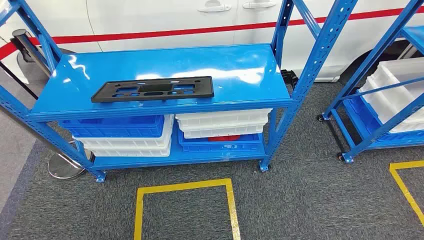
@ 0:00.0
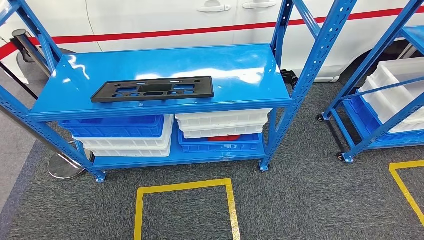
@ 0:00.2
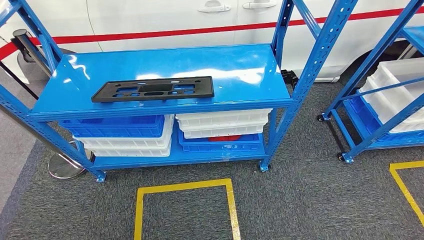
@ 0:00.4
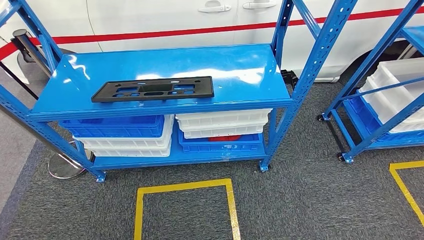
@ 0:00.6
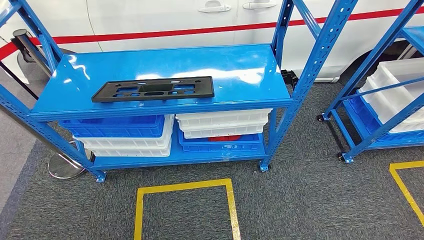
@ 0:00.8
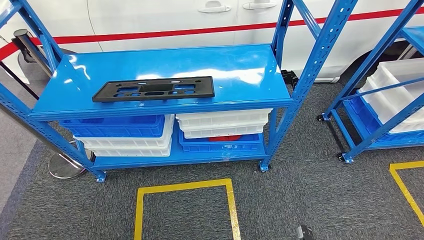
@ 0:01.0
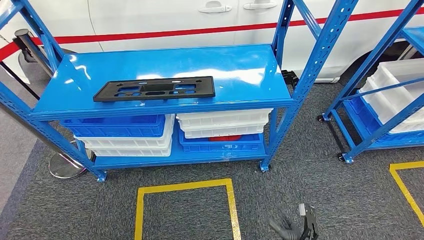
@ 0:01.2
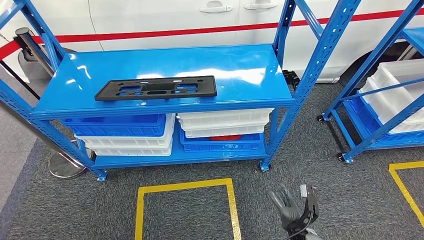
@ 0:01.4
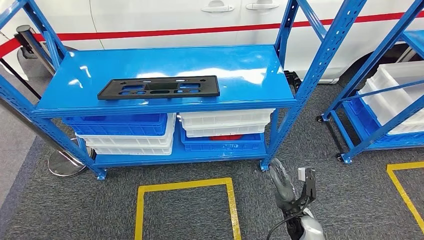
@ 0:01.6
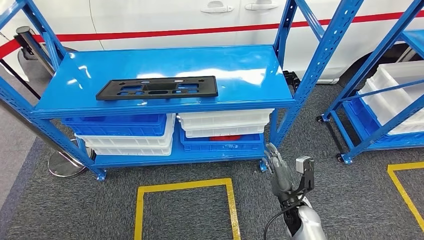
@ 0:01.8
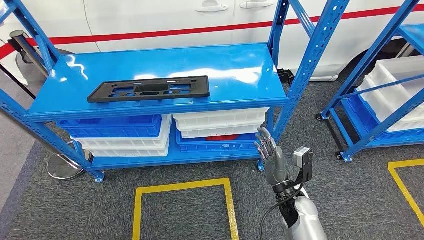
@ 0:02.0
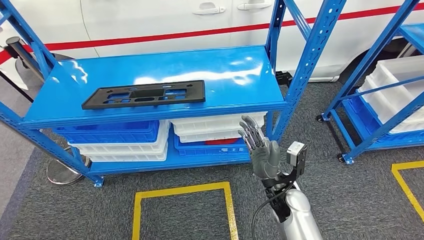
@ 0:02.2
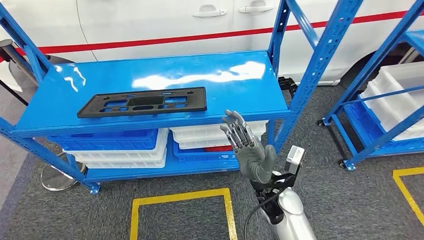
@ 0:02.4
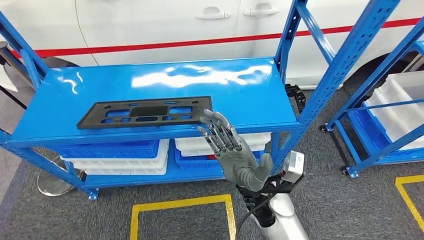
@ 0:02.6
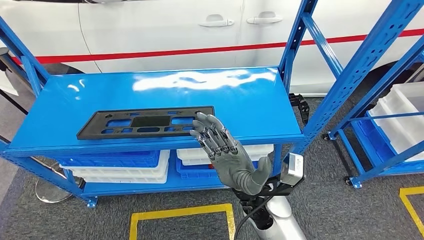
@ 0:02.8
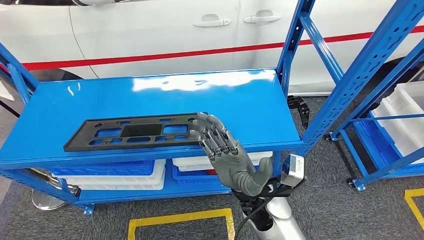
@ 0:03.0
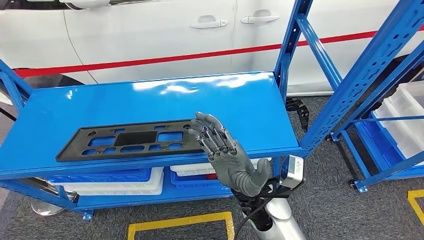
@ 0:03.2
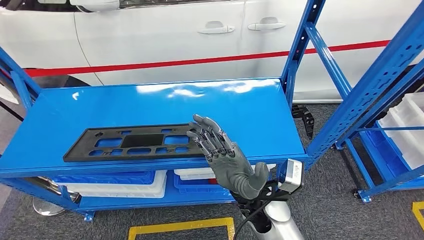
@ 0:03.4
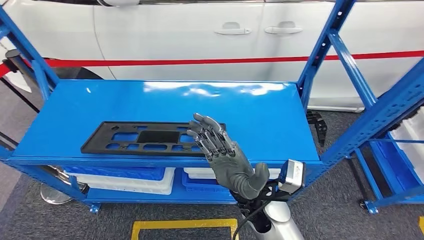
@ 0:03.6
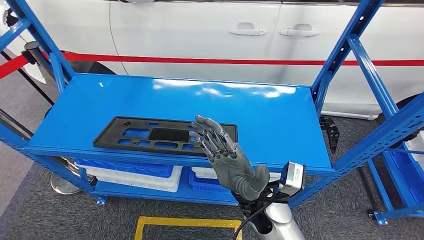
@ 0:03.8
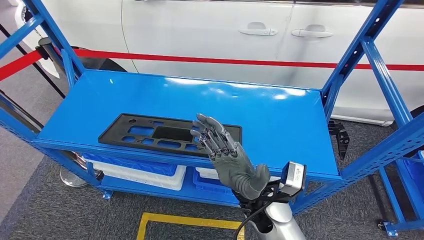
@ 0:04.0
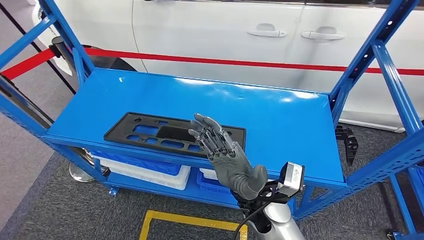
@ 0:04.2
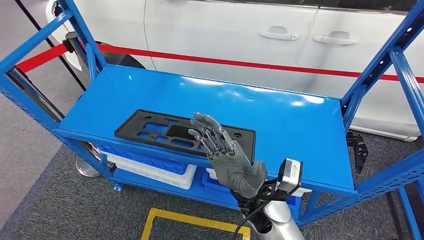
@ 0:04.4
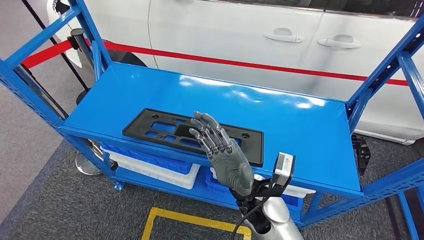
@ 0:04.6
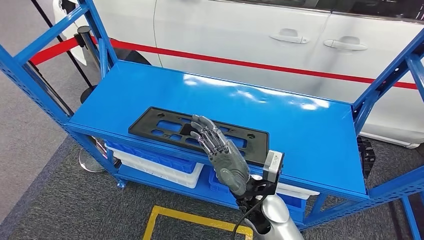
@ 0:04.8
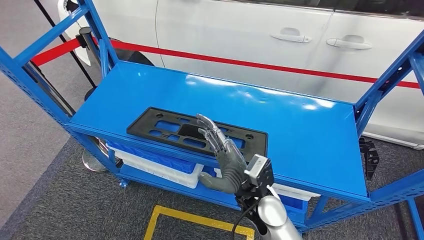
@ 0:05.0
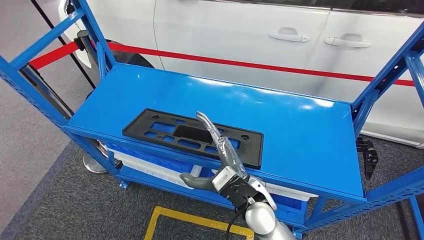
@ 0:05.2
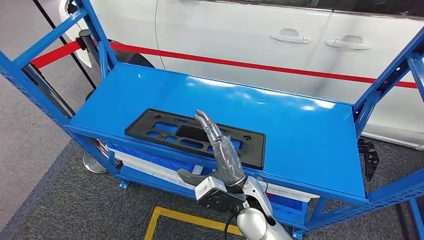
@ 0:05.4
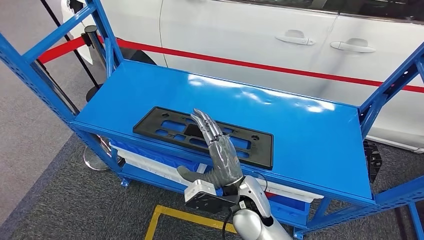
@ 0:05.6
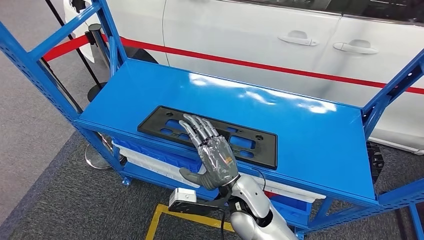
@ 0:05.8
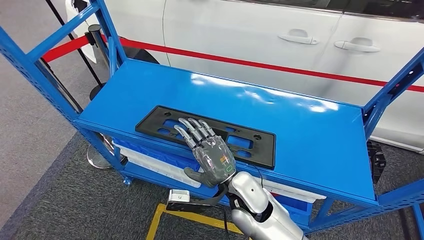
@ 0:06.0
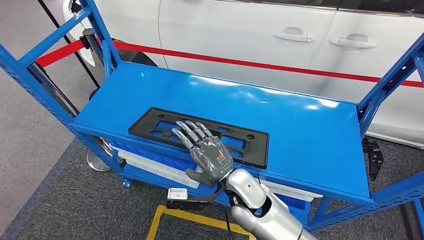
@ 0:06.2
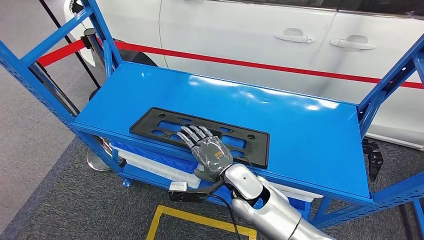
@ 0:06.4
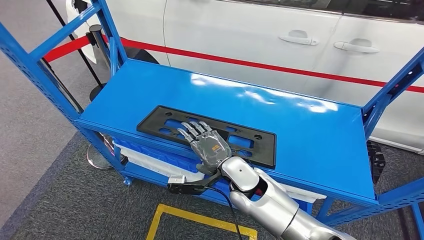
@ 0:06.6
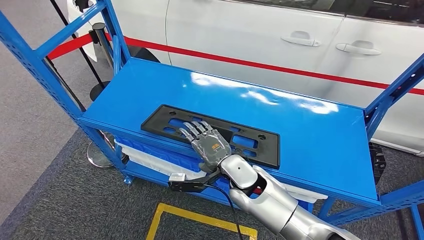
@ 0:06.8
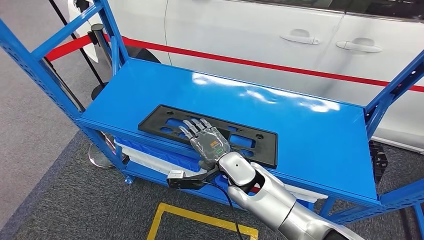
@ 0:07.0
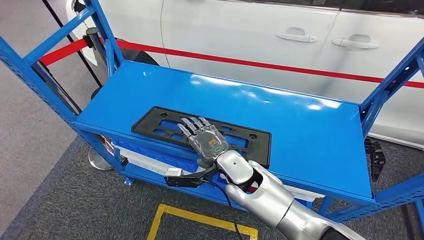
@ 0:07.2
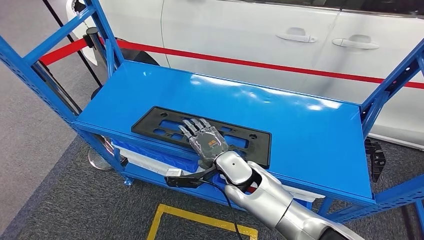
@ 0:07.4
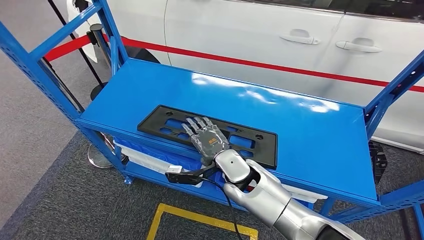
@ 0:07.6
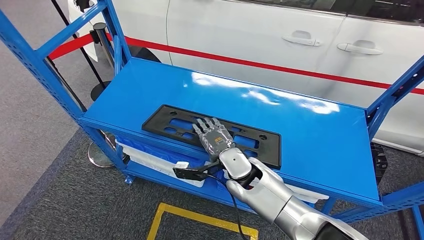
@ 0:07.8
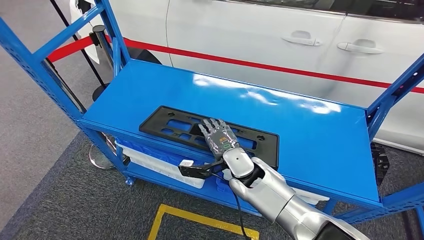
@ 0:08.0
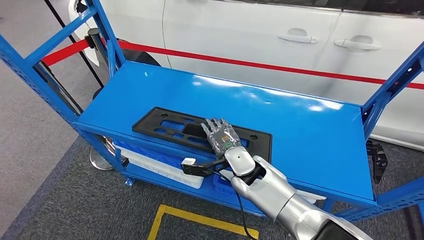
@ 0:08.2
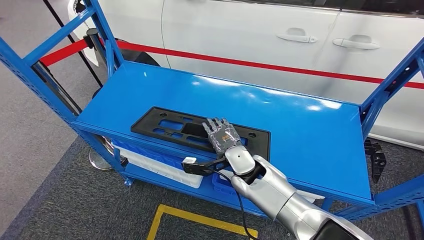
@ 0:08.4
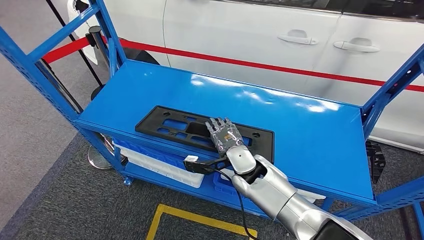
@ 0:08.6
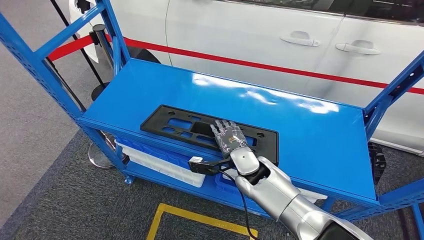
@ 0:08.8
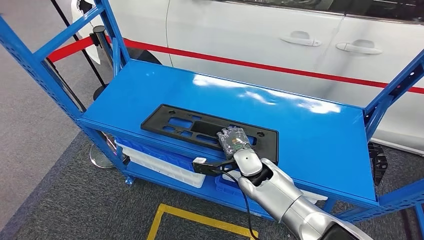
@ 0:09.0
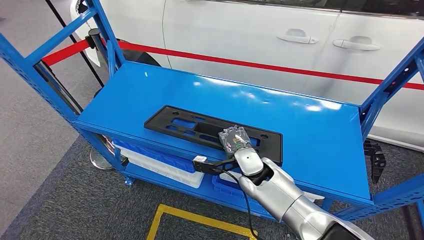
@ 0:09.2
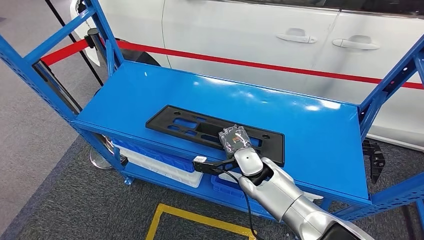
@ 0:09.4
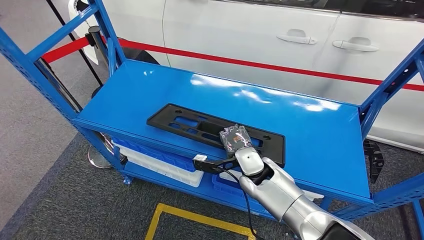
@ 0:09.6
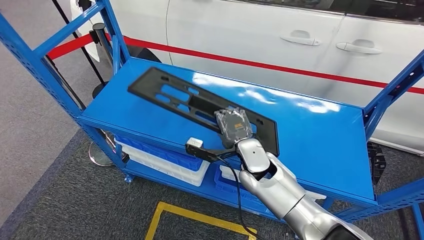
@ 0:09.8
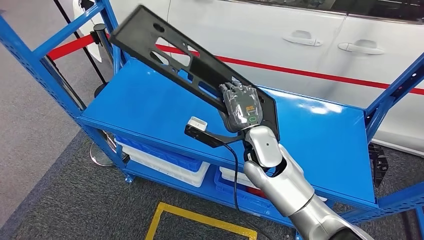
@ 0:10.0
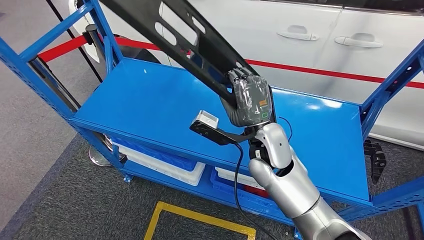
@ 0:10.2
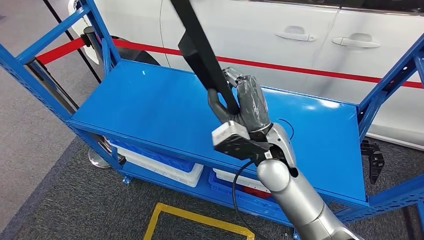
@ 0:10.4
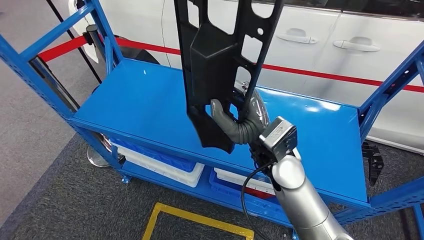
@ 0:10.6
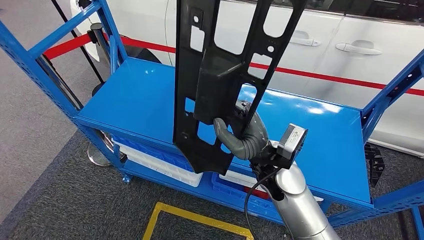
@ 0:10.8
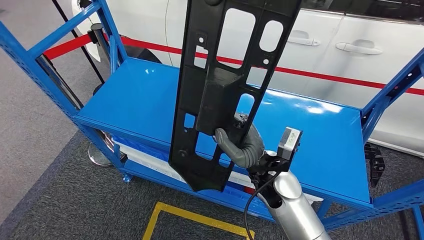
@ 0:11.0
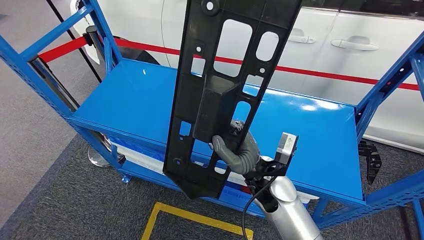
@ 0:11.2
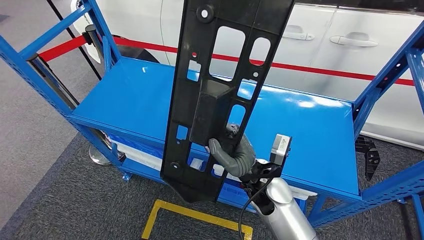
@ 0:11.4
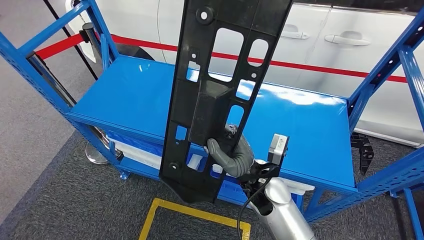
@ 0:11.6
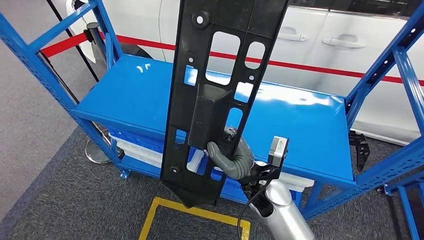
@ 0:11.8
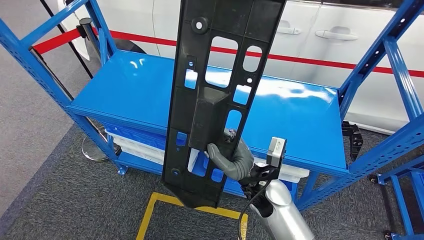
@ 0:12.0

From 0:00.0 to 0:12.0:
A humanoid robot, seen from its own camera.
Step, from 0:00.0 to 0:12.0: Pick up the large material from the shelf.
From 0:06.0 to 0:07.6: The right hand travels forward by some 5 cm.
From 0:07.6 to 0:09.0: The right hand ends up approximately 5 cm from where it was.

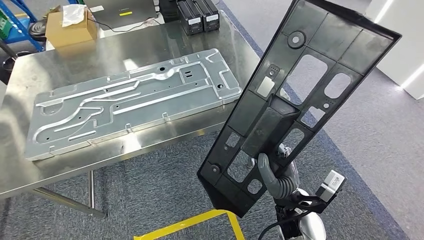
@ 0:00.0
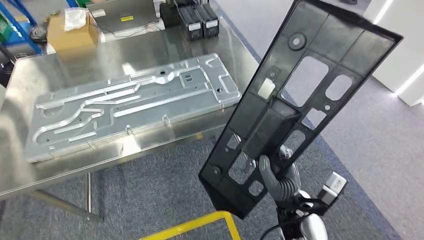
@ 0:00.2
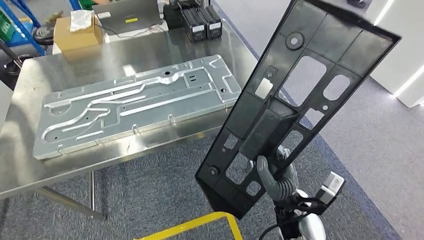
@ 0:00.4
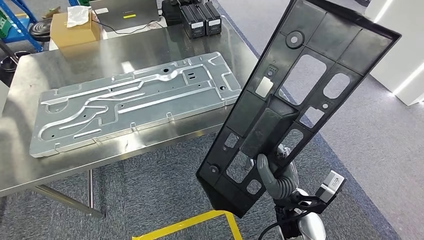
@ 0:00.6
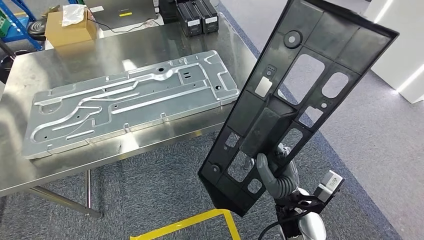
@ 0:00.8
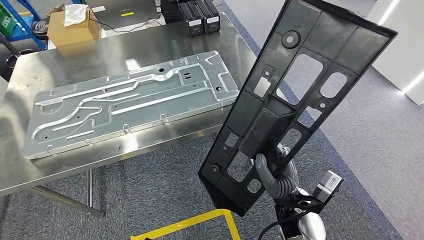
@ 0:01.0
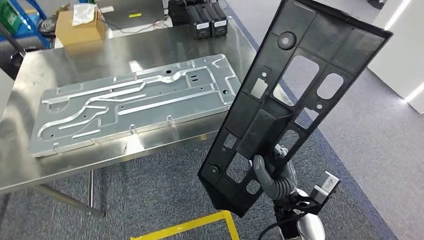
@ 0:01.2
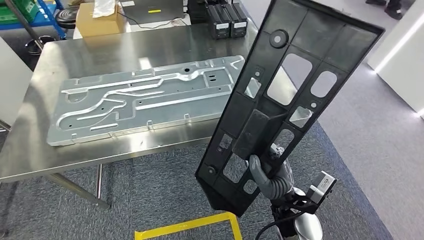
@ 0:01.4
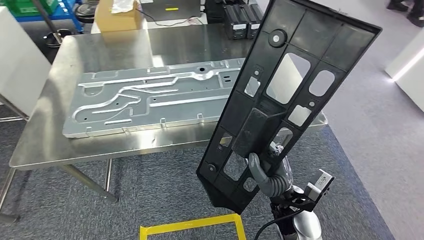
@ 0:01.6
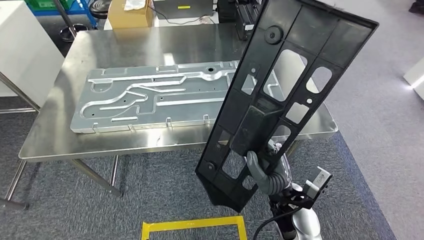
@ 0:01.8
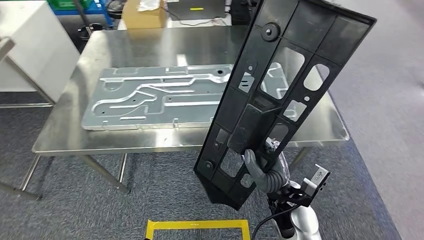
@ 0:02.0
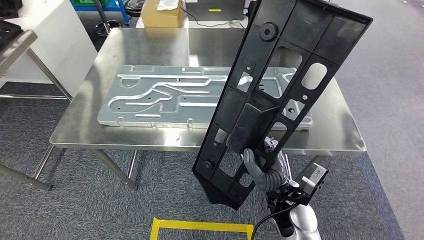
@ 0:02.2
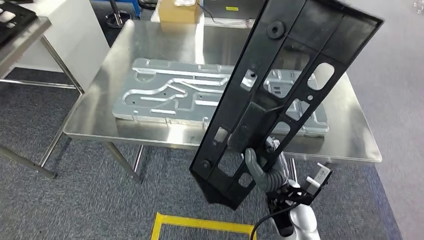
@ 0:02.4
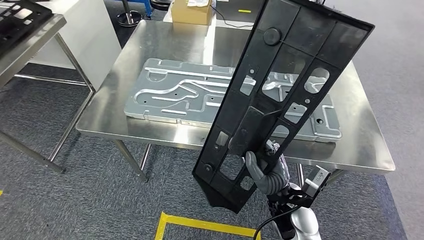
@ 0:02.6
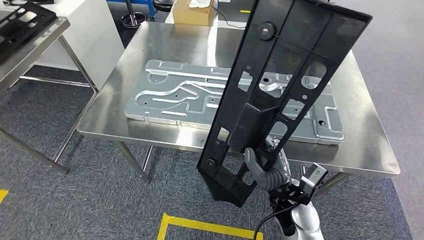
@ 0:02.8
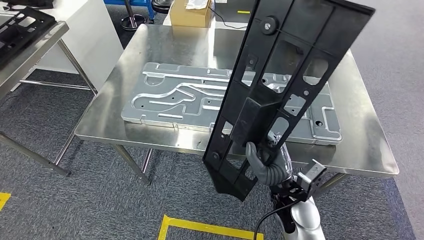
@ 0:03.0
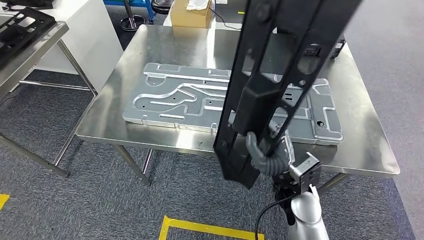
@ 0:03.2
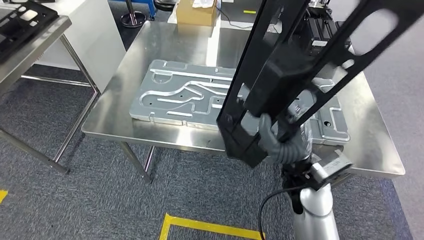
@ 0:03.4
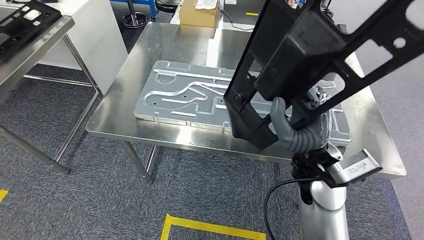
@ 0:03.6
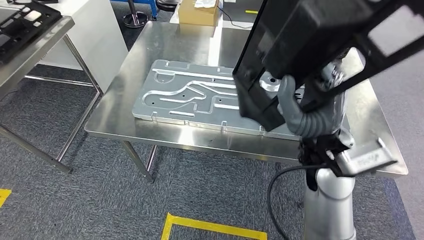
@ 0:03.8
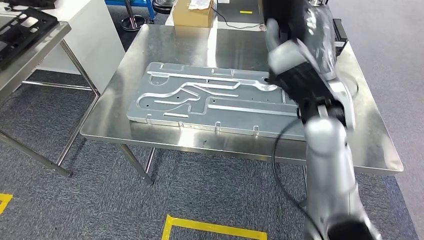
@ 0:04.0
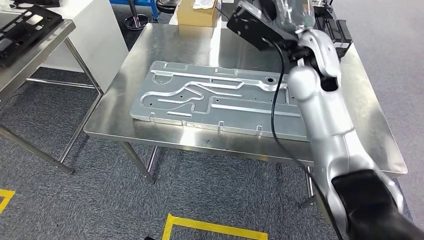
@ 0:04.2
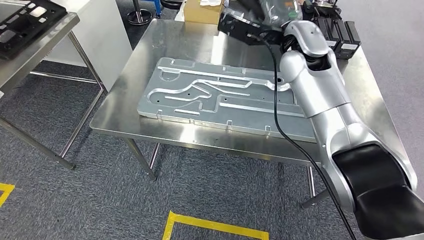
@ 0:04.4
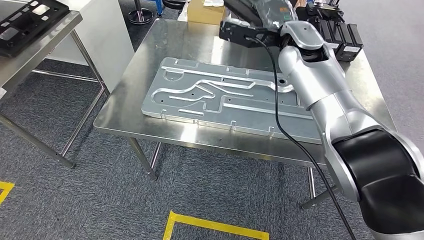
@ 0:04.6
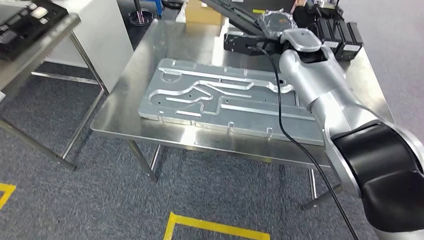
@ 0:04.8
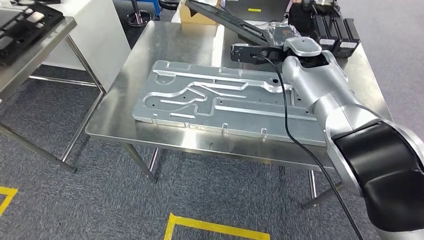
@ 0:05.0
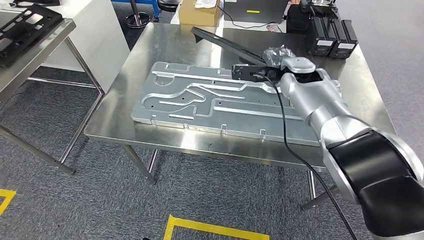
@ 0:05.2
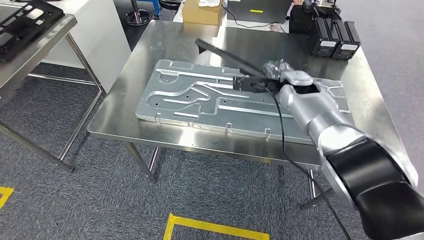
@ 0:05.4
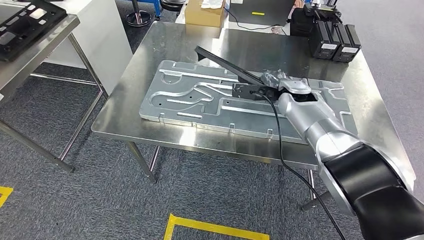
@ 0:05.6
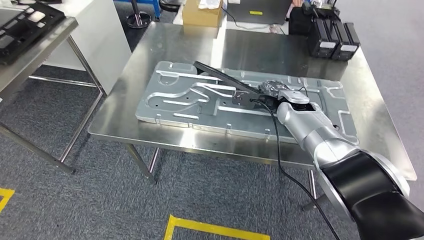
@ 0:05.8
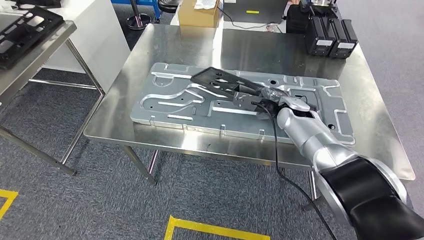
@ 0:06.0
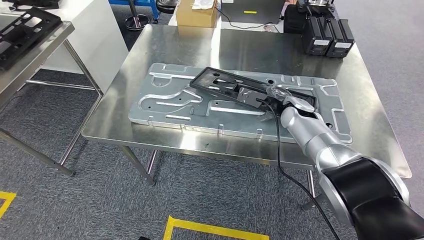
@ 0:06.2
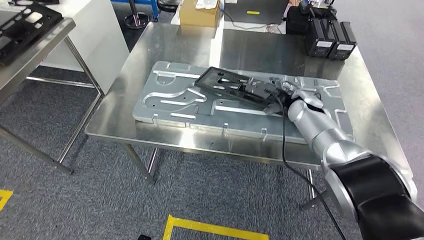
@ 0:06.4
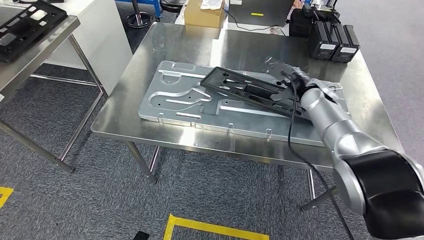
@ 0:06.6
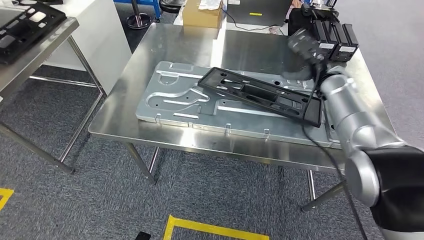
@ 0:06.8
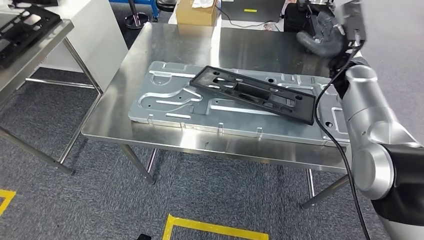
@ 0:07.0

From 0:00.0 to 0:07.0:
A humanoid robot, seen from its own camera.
Step, from 0:00.0 to 0:02.8: Move the large material to the workbench.
